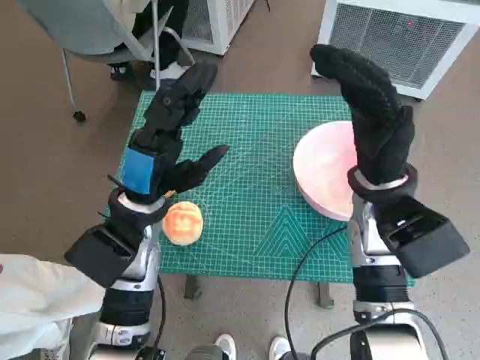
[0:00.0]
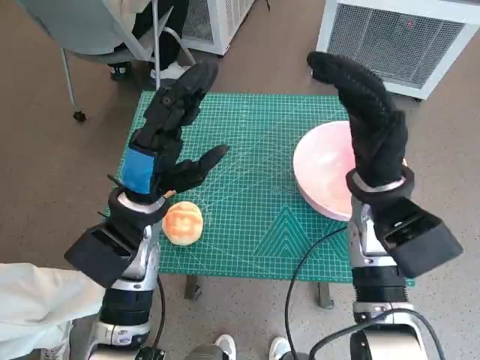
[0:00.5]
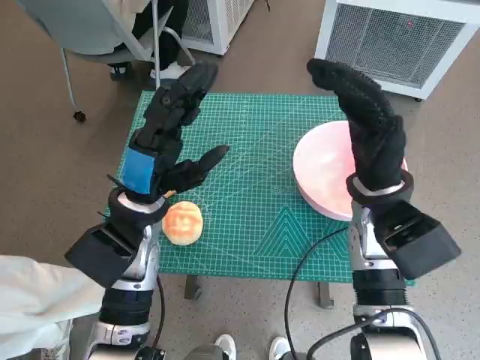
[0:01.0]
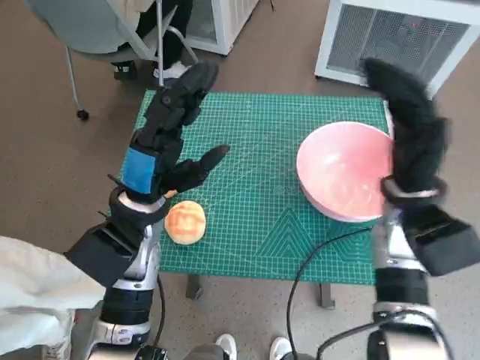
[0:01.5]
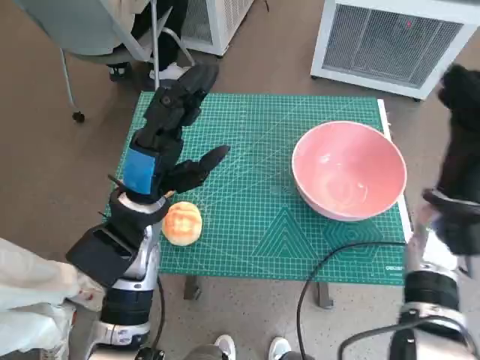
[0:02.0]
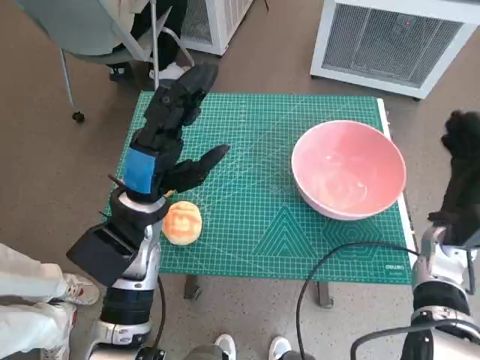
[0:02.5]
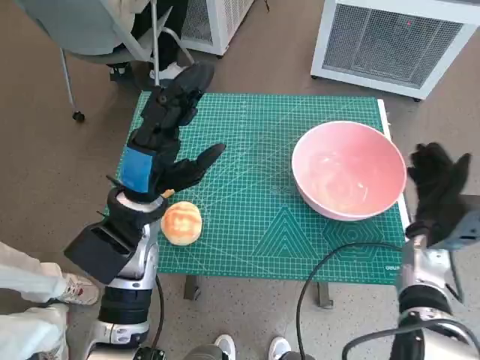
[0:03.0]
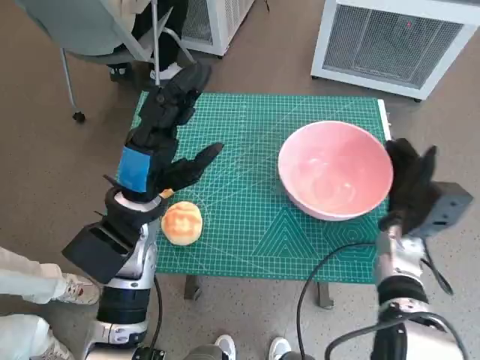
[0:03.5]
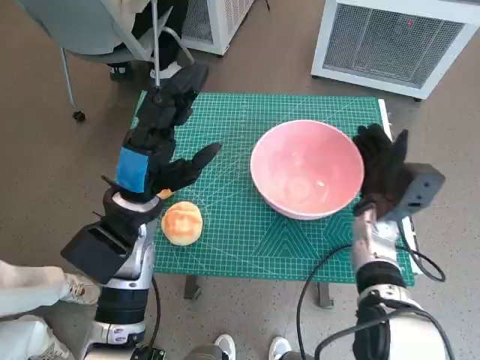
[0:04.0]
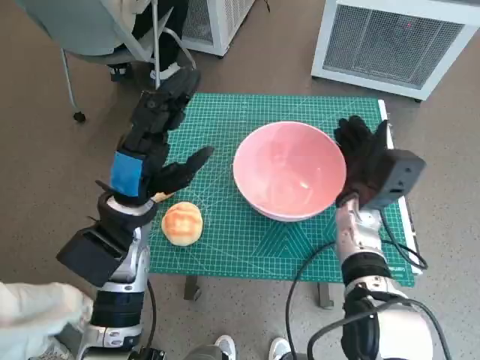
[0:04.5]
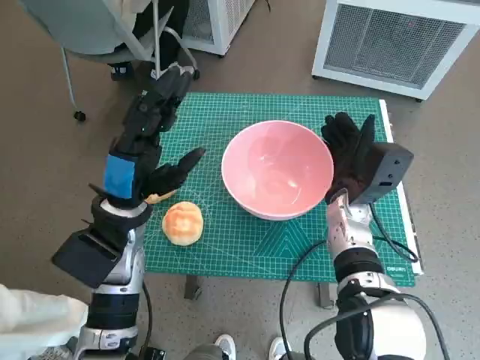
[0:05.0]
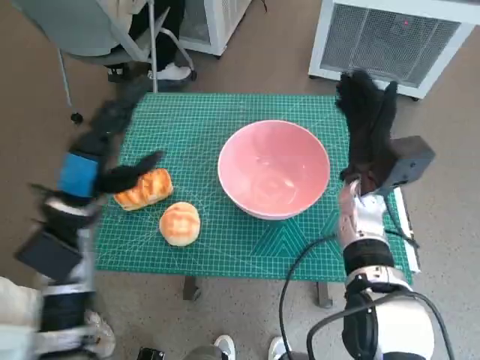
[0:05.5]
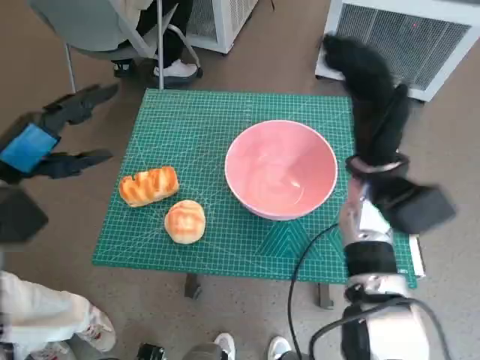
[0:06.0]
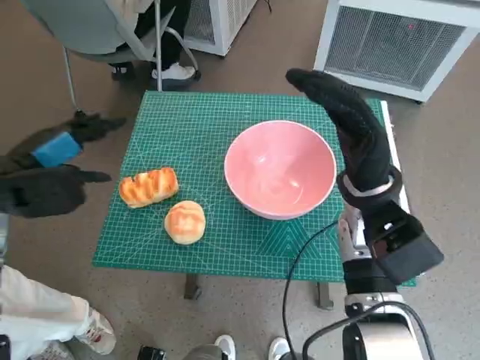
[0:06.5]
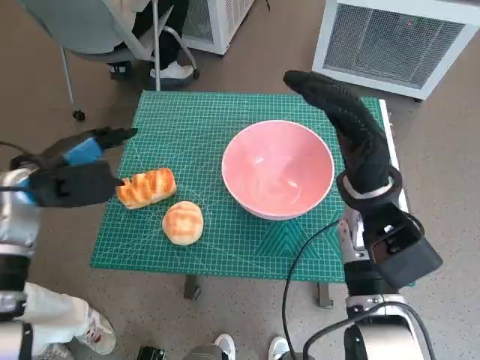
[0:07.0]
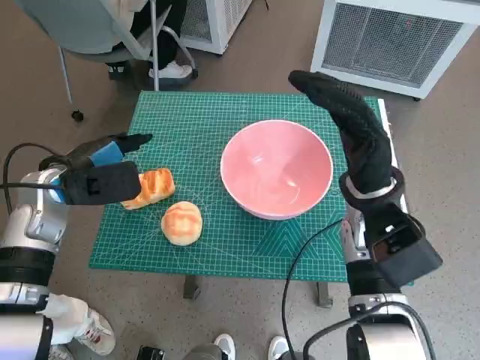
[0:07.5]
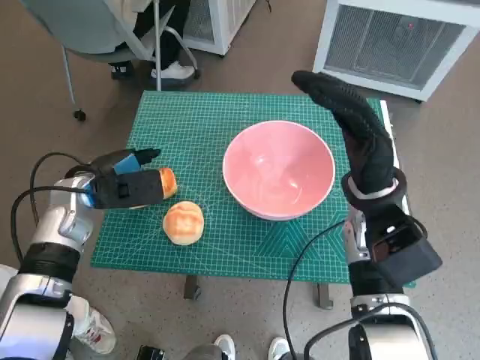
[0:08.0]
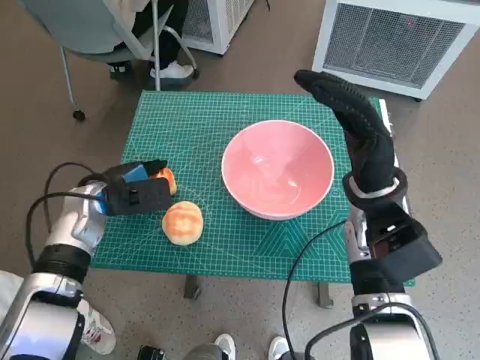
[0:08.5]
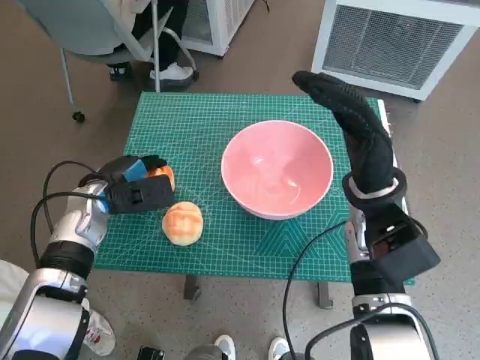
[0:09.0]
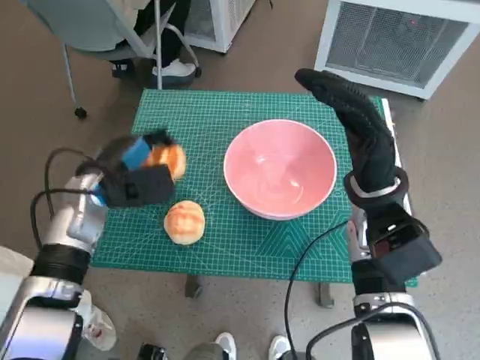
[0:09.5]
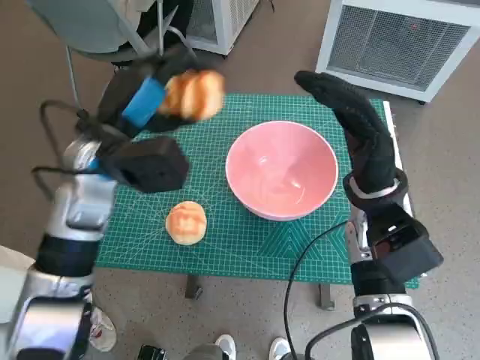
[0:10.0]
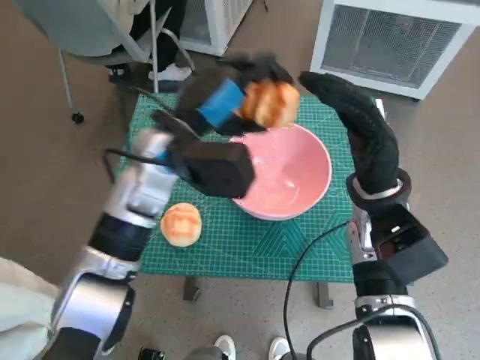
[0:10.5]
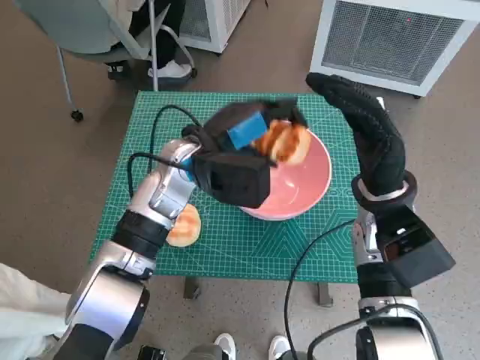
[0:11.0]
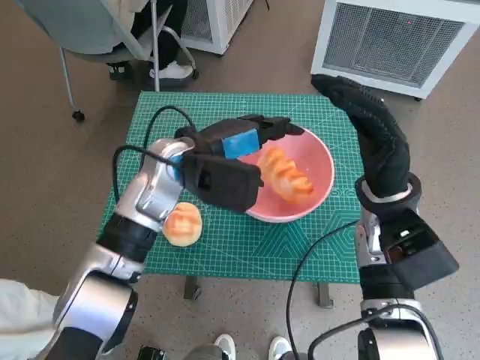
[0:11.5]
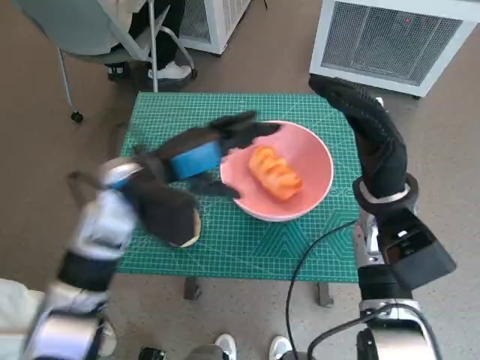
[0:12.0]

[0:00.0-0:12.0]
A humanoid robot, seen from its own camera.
Task of the whole recording: Push the bowl to the center of the table and put the bread into the bowl.
Step, 0:00.0 to 0:05.5: Move the pink bowl to the center of table with right hand.
Step, 0:06.0 to 0:09.0: Grasp the long bread with left hand.
Step, 0:09.5 to 0:11.5: Place the long bread in pink bowl with left hand.
0:02.0 to 0:04.0: The right hand is displaced downward and to the left by some 10 cm.
0:04.0 to 0:06.0: The right hand moves upward, about 10 cm; the left hand is displaced to the left and upward by approximately 15 cm.
0:06.0 to 0:08.0: The left hand is displaced downward, forward and to the right by about 10 cm.
0:08.0 to 0:10.0: The left hand shifts approximately 10 cm upward and to the right.

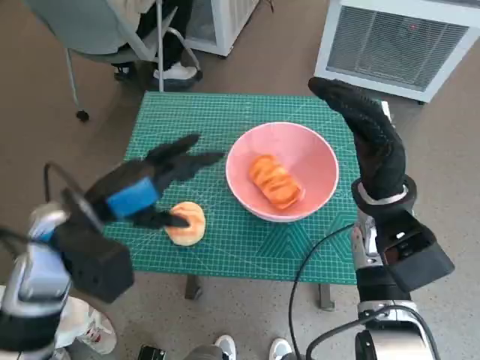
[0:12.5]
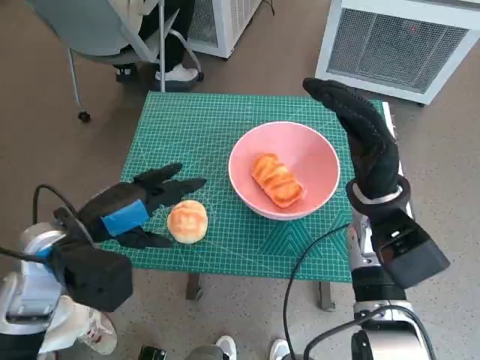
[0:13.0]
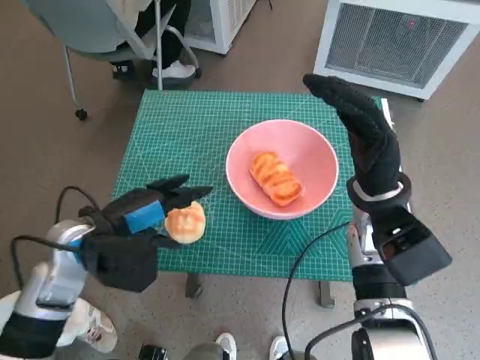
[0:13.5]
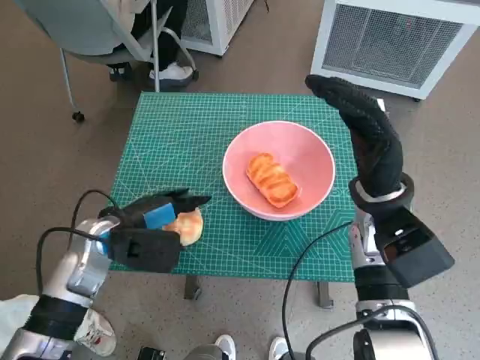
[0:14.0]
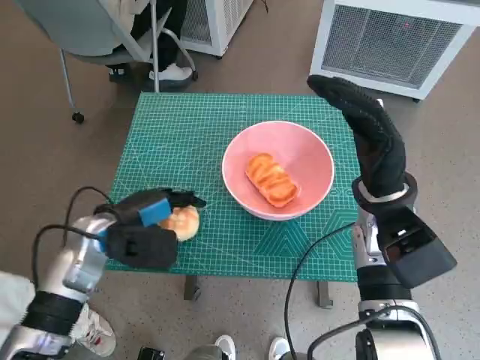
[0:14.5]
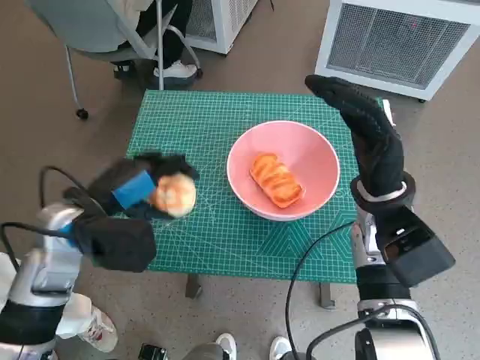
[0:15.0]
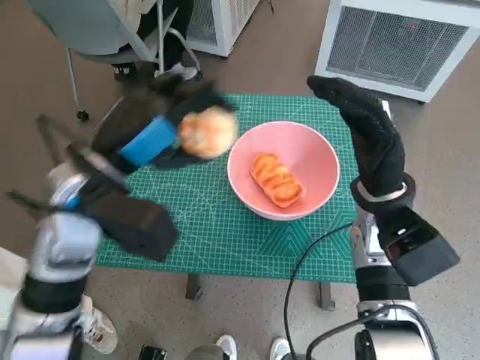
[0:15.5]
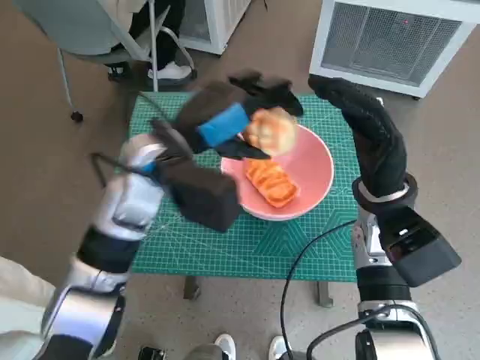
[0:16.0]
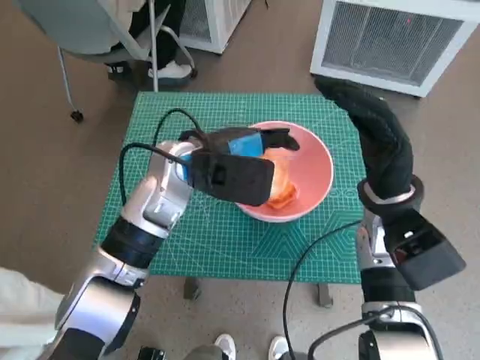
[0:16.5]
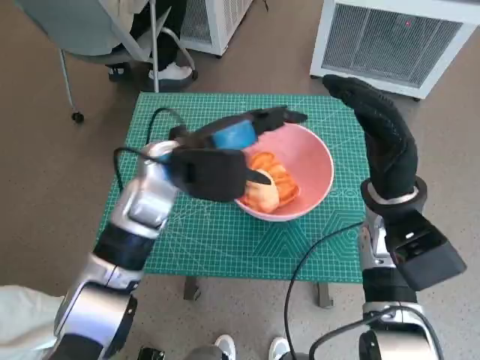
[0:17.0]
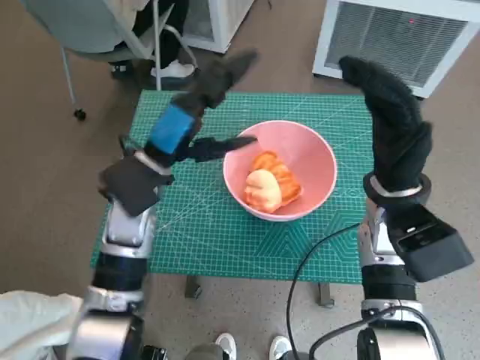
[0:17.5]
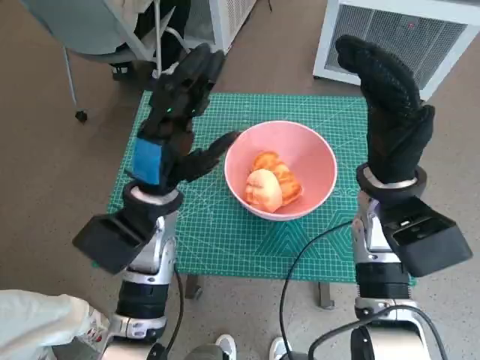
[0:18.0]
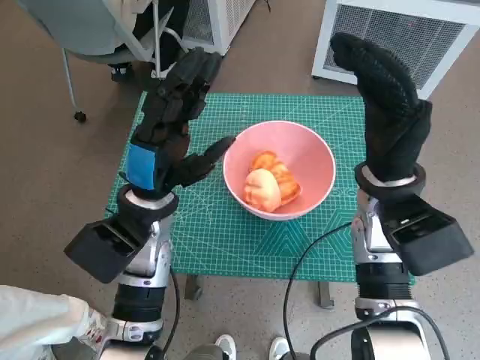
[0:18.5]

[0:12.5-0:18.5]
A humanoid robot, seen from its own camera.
Task of the whole recording: Push the bowl to the center of the table and put the bread into the bowl.
Step, 0:12.5 to 0:14.0: Grasp the round bread with left hand.
Step, 0:14.5 to 0:17.0: Place the round bread in pink bowl with left hand.
0:12.5 to 0:14.5: The left hand moves downward, about 10 cm.
0:14.5 to 0:16.5: The left hand moves to the right, upward and forward, roughly 15 cm.
0:16.5 to 0:18.5: The left hand heads backward, covering approximately 5 cm.

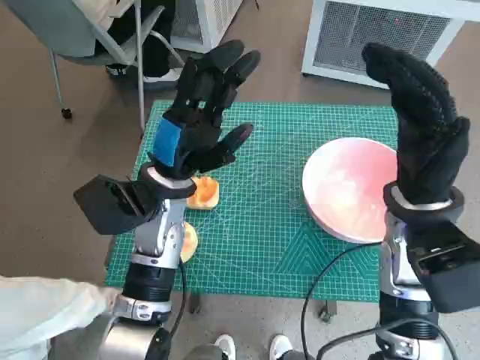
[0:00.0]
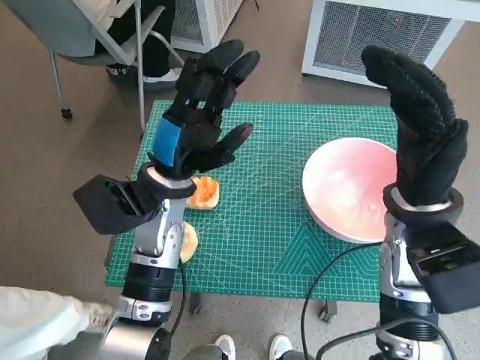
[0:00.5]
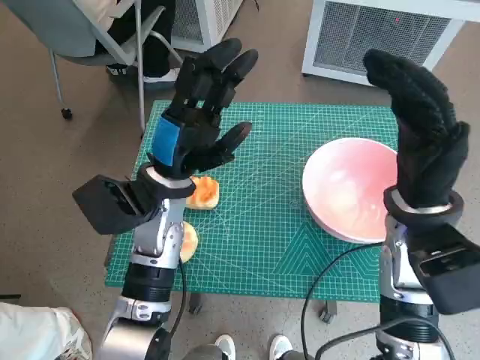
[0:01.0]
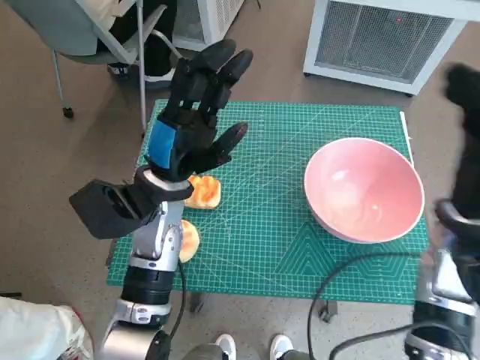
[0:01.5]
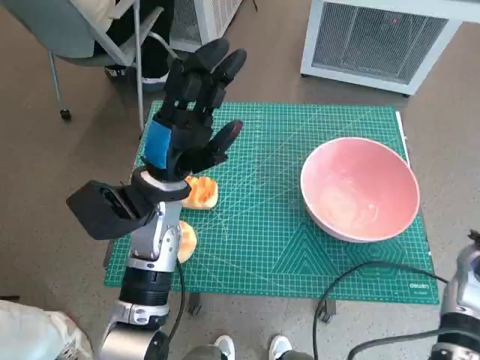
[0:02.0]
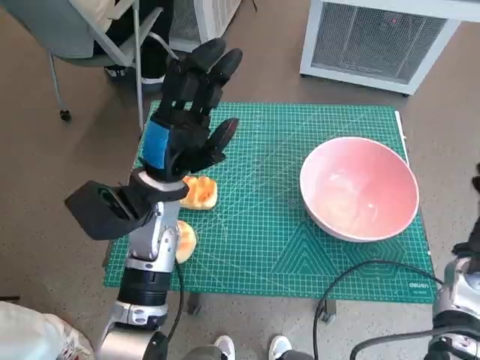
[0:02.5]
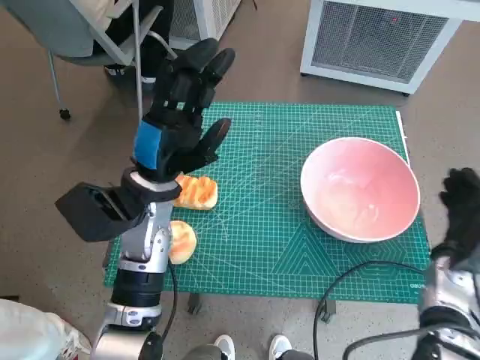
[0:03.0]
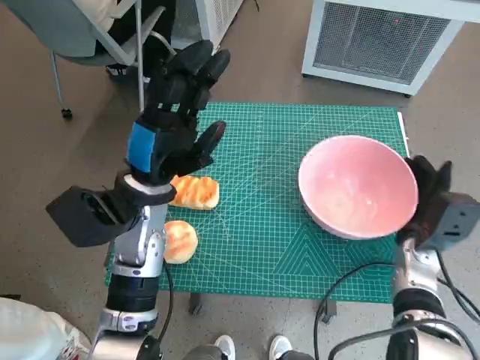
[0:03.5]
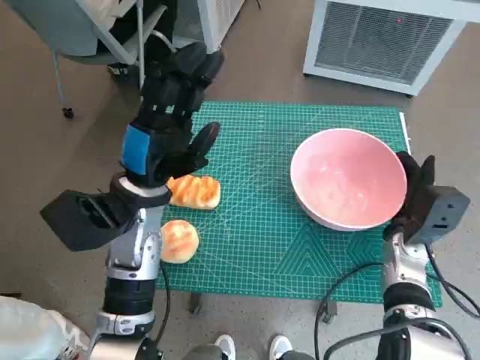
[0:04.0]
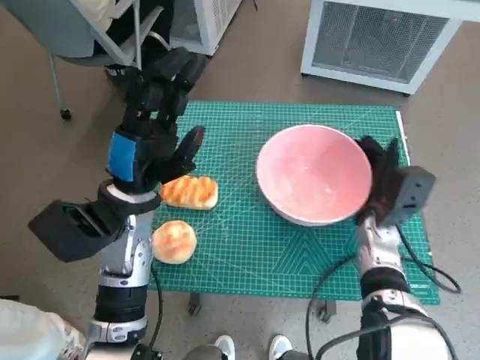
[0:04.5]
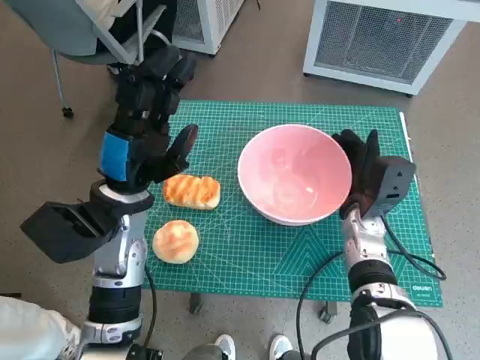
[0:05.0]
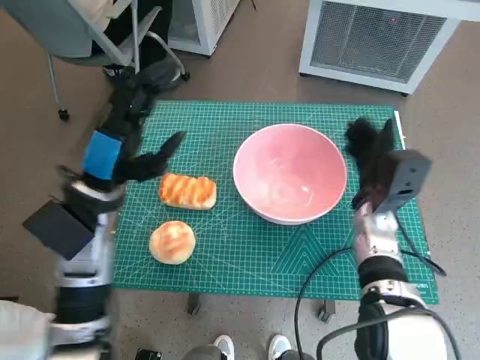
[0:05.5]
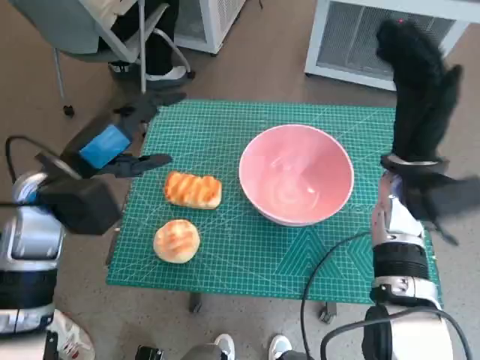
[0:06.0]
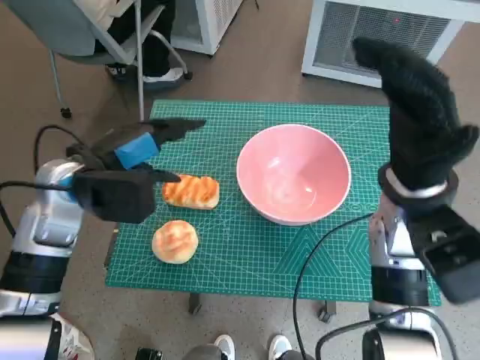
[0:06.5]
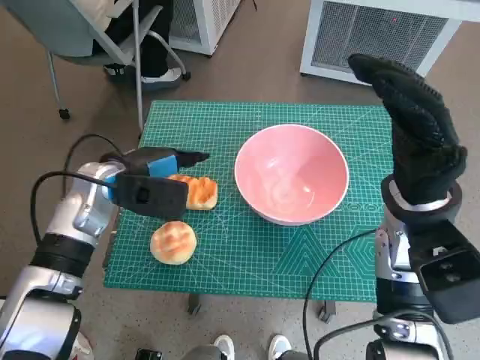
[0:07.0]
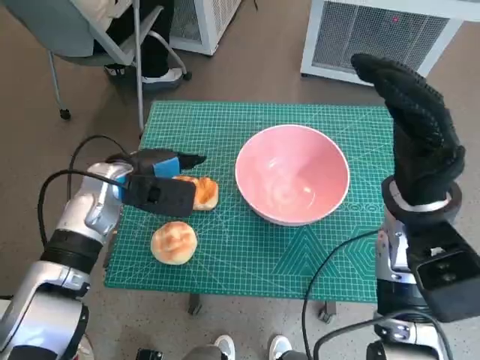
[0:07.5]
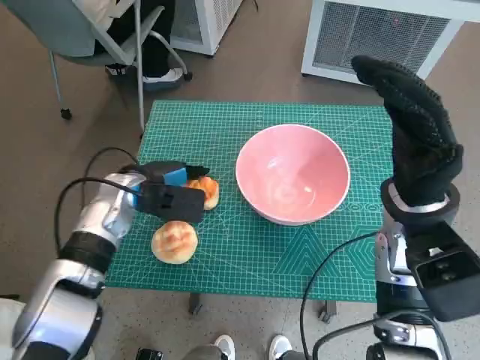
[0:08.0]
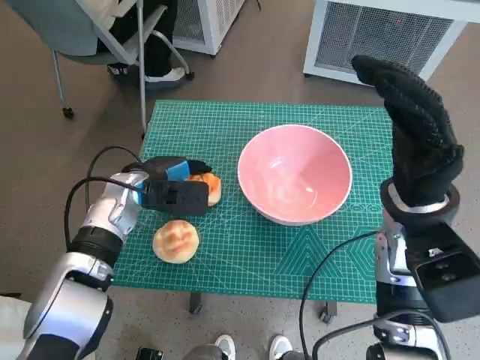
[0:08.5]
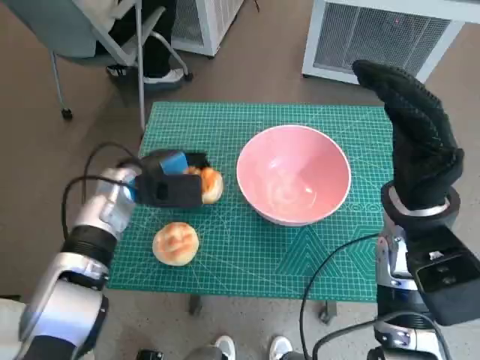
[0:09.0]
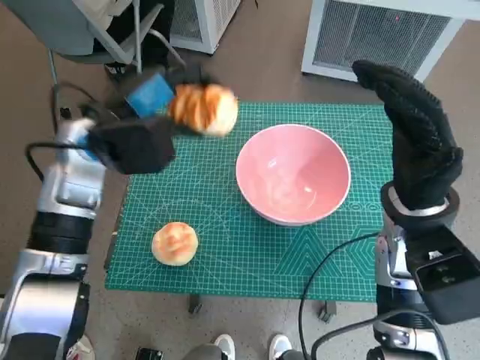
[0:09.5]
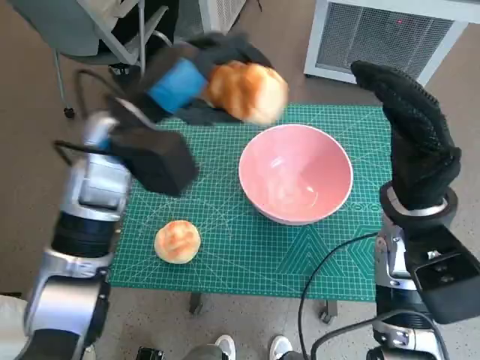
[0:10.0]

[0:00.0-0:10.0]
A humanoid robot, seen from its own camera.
Task of the whole recording: Push the bowl to the center of the table and put the bread into the bowl.
Step, 0:00.0 to 0:05.5: Move the pink bowl to the center of table with right hand.
Step, 0:06.0 to 0:08.5: Grasp the long bread with left hand.
0:02.0 to 0:04.0: The right hand goes about 10 cm downward and to the left.
0:04.0 to 0:06.0: The right hand heads upward, covering some 10 cm; the left hand travels to the left by approximately 10 cm.
0:06.0 to 0:08.0: The left hand shifts approximately 10 cm downward and forward; the right hand travels backward by approximately 5 cm.
0:08.0 to 0:10.0: The left hand travels upward by roughly 15 cm.
